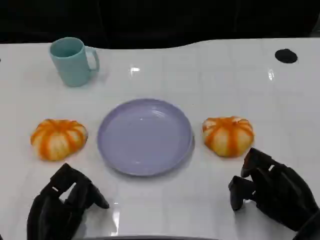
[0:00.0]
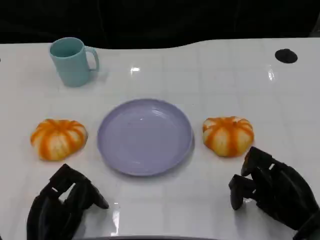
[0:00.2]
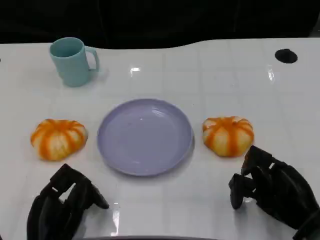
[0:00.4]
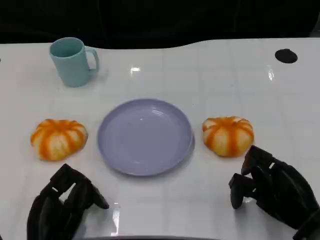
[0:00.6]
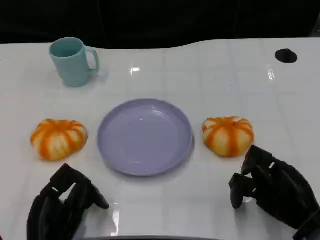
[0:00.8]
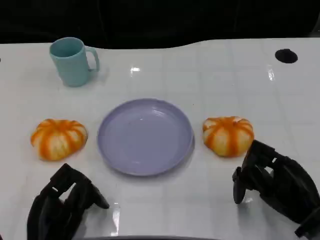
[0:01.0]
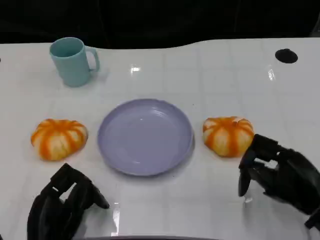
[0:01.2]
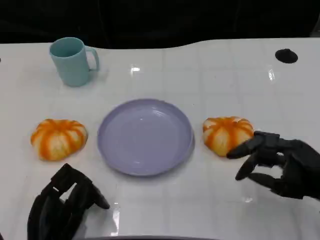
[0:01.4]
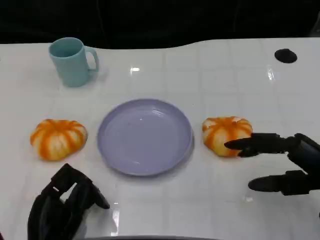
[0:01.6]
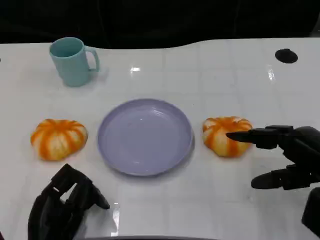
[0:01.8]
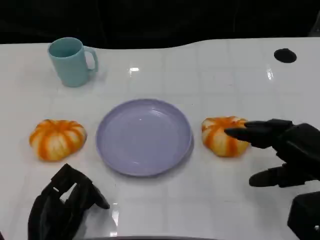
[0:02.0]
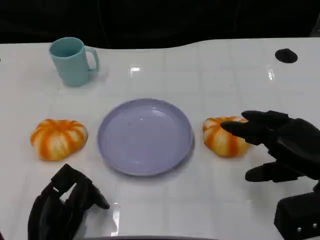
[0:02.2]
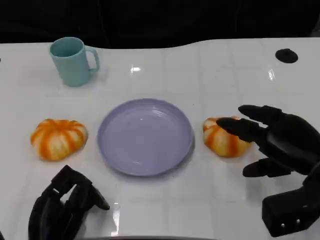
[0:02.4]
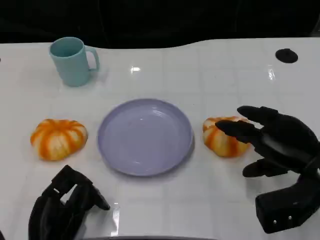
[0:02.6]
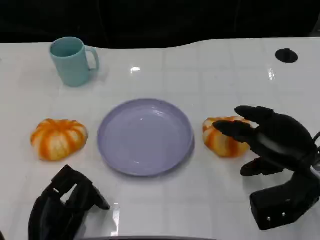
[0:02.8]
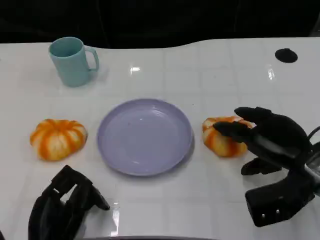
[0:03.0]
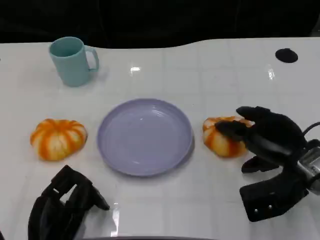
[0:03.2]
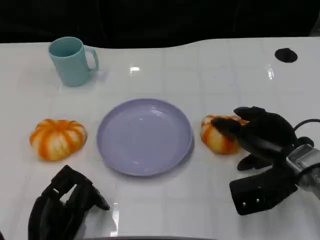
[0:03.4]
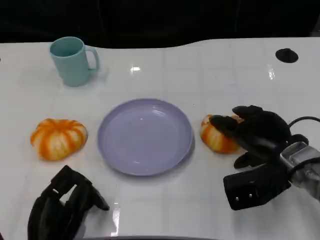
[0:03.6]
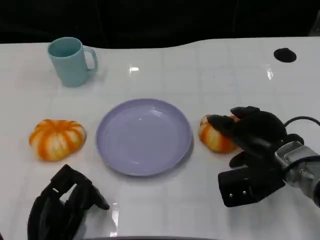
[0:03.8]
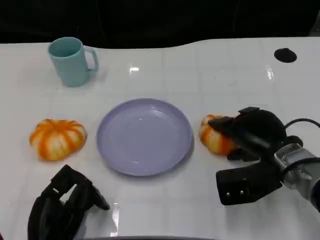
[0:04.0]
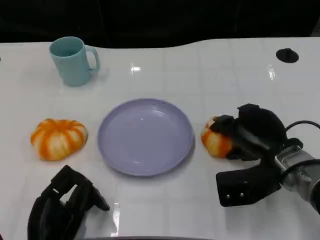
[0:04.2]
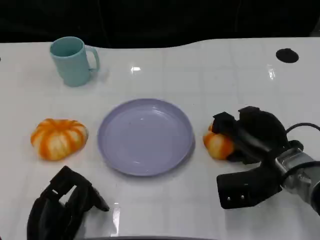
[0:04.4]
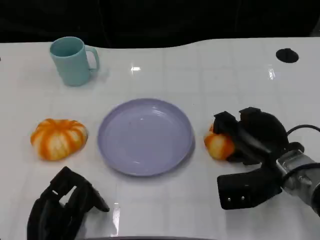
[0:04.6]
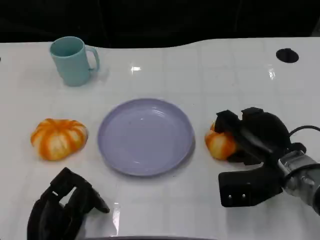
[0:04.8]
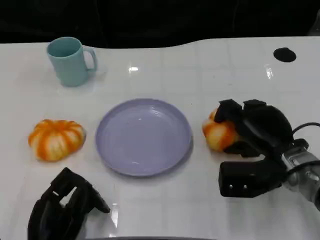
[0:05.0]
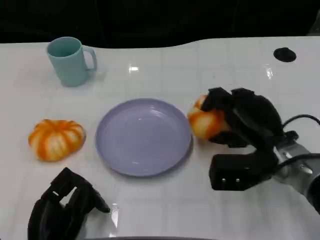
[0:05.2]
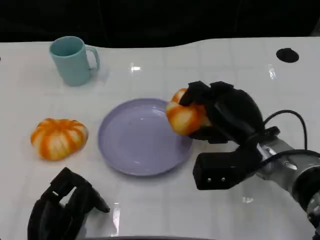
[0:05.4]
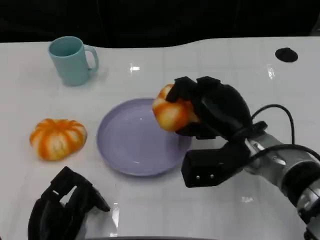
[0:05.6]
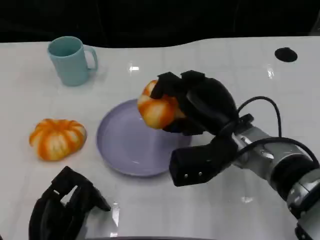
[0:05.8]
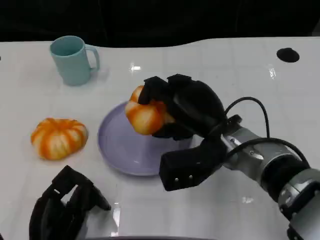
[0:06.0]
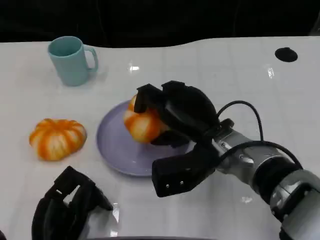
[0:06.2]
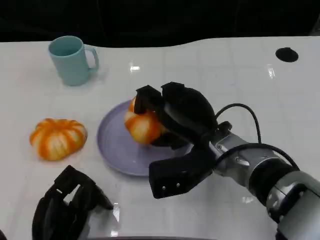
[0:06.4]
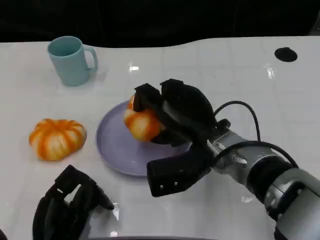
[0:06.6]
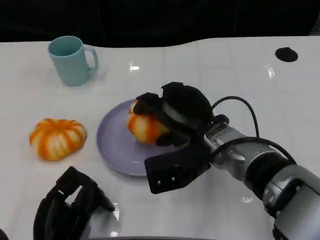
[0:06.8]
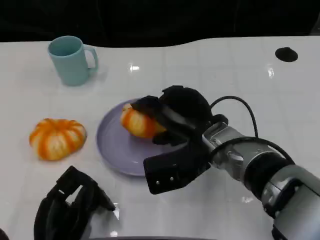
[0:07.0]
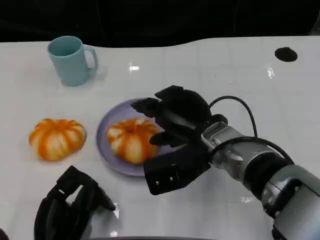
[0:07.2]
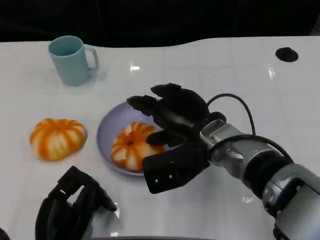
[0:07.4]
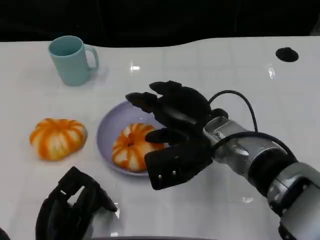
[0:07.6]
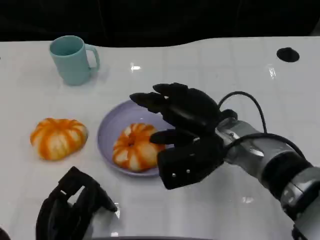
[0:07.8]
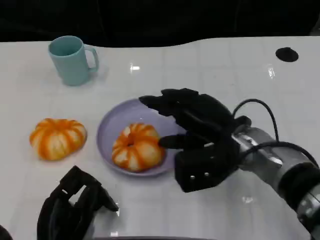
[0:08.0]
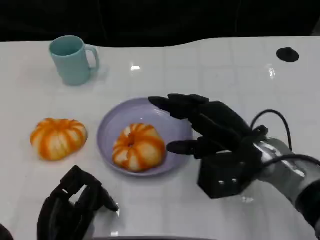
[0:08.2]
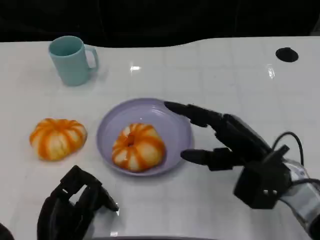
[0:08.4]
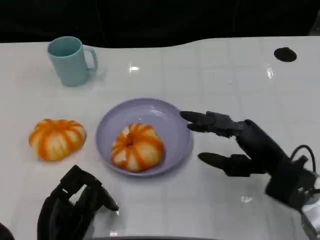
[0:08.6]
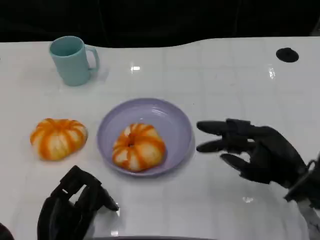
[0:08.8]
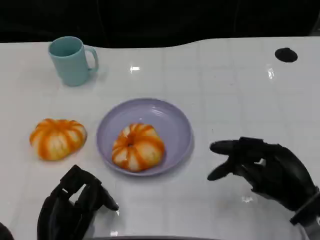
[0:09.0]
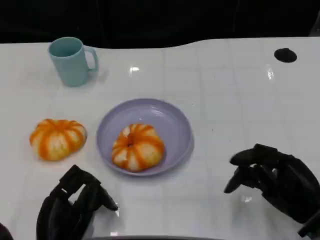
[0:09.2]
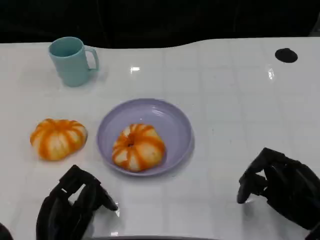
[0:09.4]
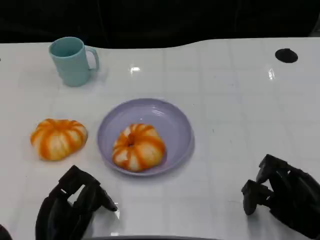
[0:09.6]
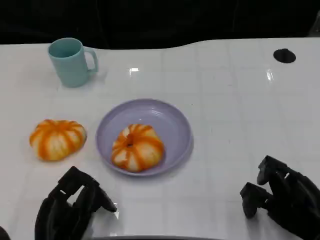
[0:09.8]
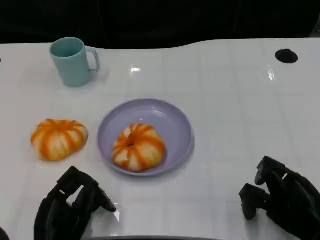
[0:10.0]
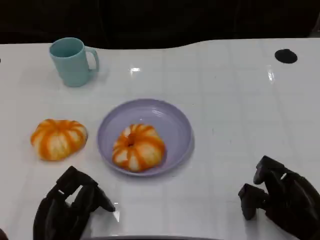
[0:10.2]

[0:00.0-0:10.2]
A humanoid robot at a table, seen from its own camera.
Task of the whole recording: Grasp the bread from the table and place it into the plate.
0:00.0 to 0:01.4: The right hand heads upward, covering some 5 cm.
0:01.4 to 0:03.0: The right hand goes about 5 cm forward.
0:03.0 to 0:04.4: There are only small adjustments of the hands.
0:04.4 to 0:05.8: The right hand shifts roughly 10 cm to the left.
0:07.2 to 0:08.8: The right hand is displaced to the right by approximately 15 cm.
0:08.8 to 0:10.2: The right hand goes approximately 5 cm backward.

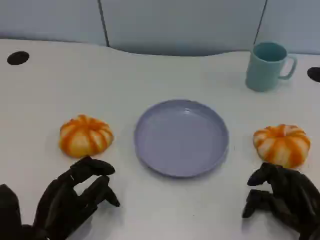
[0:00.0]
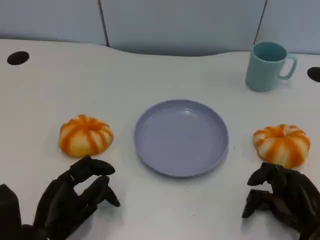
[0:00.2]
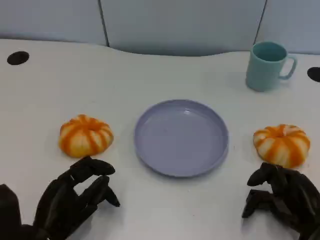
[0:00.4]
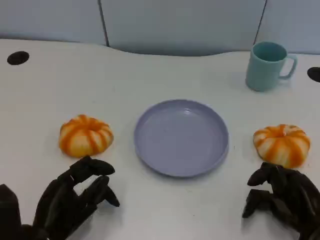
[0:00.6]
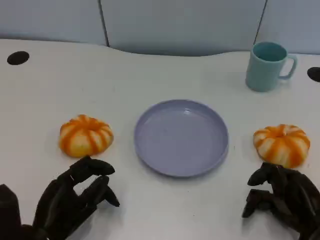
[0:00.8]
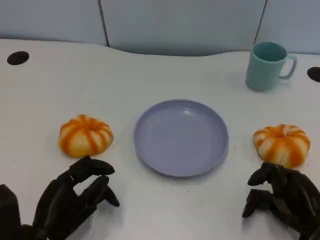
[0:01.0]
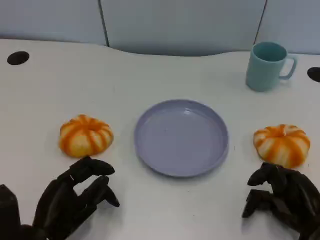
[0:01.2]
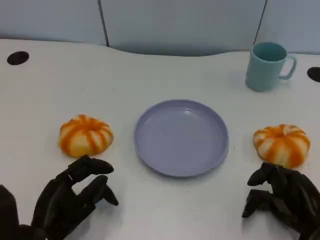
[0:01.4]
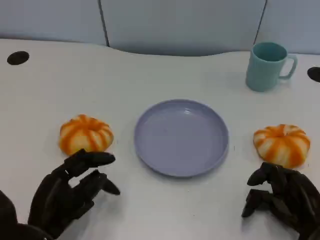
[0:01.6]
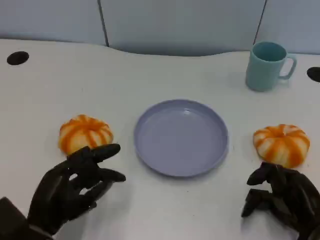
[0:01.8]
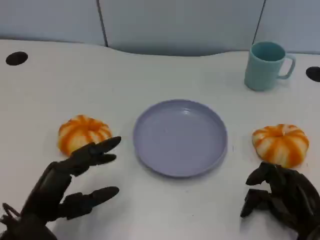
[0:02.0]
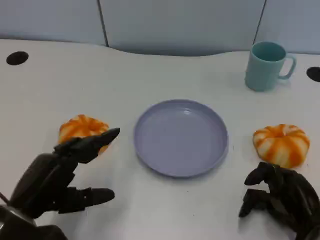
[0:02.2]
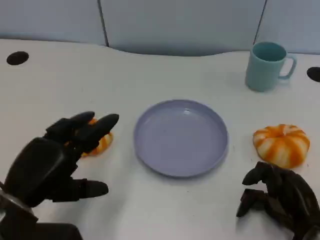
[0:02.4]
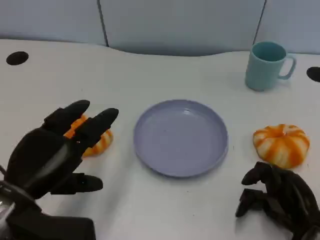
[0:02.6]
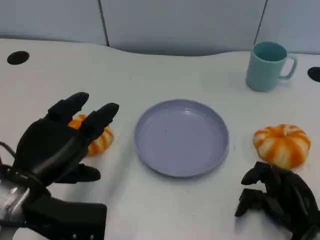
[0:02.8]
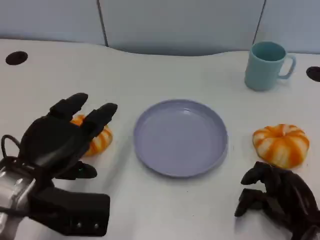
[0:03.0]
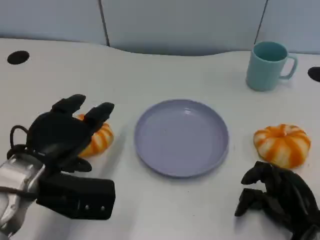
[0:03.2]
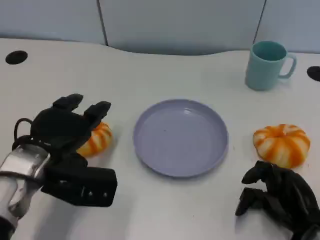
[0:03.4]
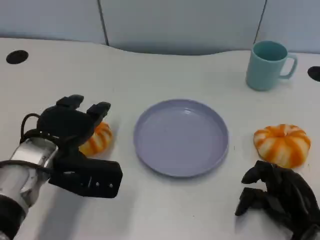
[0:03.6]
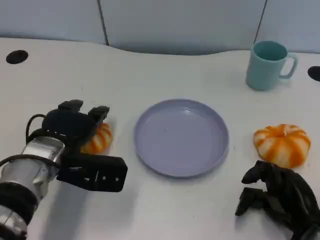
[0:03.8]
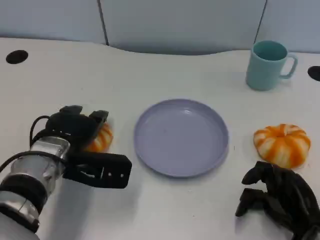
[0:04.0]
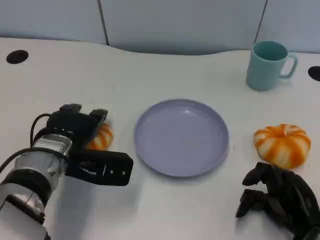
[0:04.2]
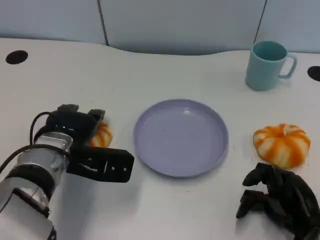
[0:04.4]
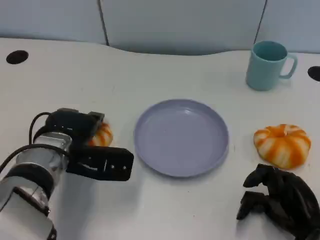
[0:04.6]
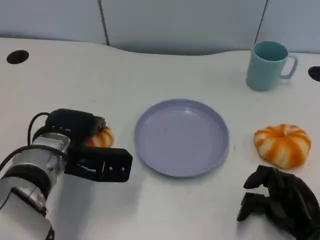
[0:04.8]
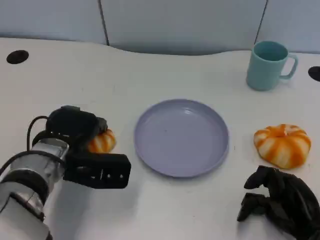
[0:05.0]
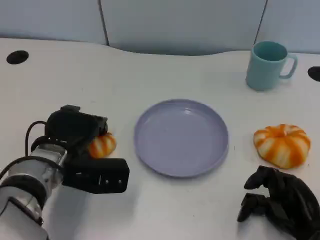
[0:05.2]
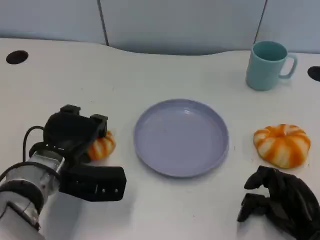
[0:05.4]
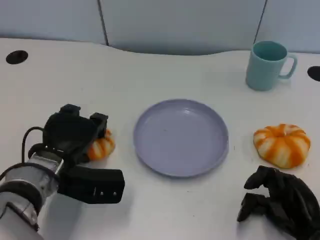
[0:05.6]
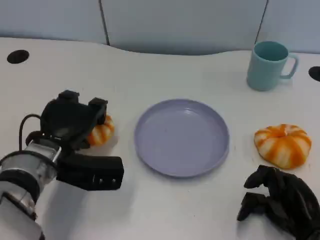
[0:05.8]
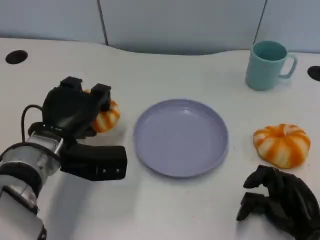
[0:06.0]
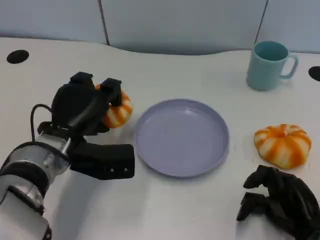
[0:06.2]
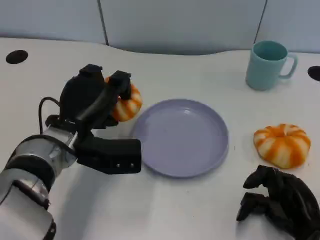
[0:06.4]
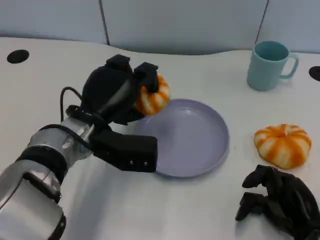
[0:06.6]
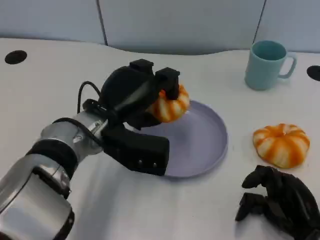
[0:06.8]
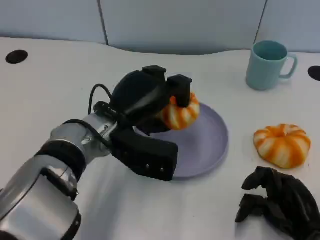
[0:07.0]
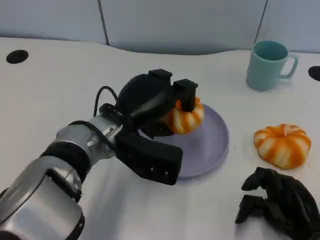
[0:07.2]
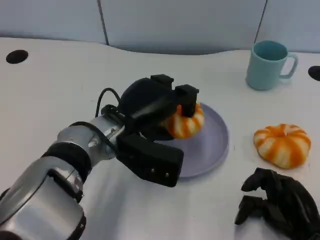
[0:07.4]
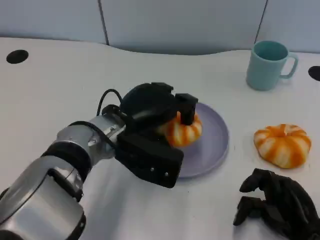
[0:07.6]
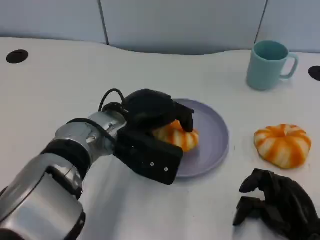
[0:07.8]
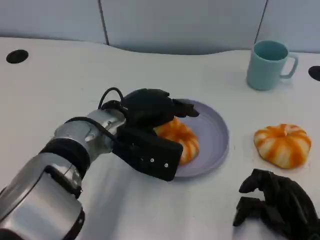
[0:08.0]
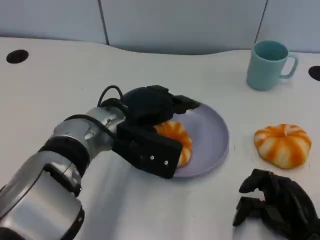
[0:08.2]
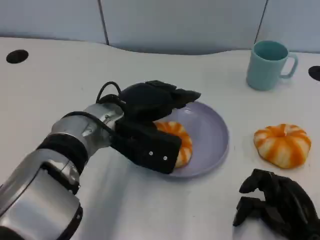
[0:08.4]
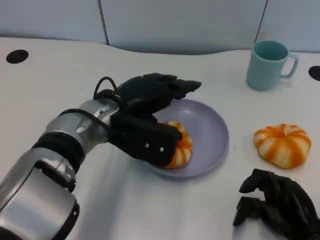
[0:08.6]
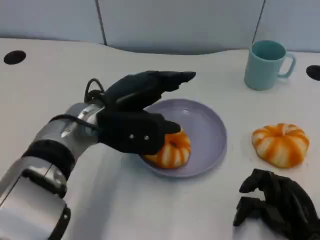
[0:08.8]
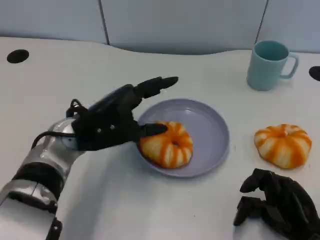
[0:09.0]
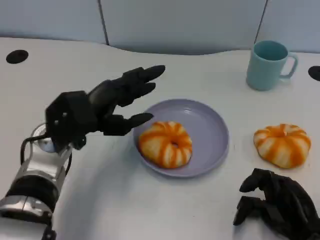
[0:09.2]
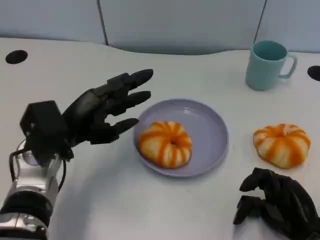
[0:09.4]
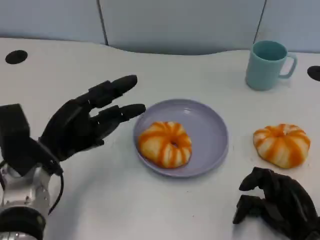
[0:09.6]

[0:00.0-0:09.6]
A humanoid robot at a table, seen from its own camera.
Task of the whole recording: Grasp the bread from the table and place it into the plate.
0:00.0 to 0:01.6: The hands make only small movements.
0:01.6 to 0:03.2: The left hand goes some 10 cm upward and forward.
0:03.2 to 0:04.8: The left hand is displaced forward by some 5 cm.
0:06.4 to 0:08.0: The left hand is displaced to the right by about 5 cm.
0:08.0 to 0:09.6: The left hand travels to the left by about 10 cm.

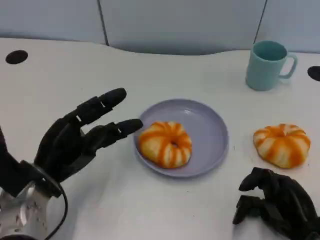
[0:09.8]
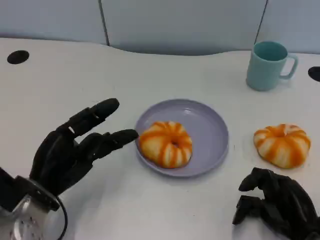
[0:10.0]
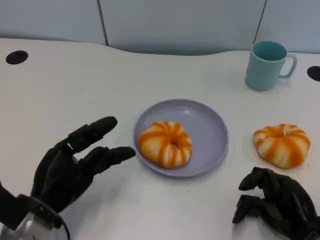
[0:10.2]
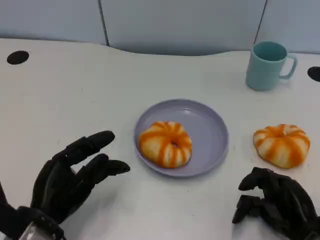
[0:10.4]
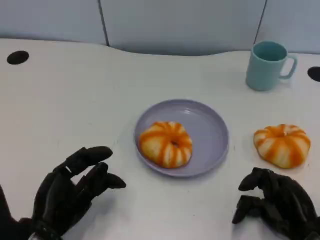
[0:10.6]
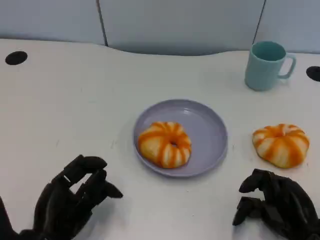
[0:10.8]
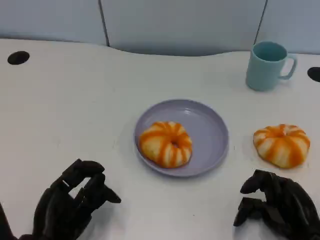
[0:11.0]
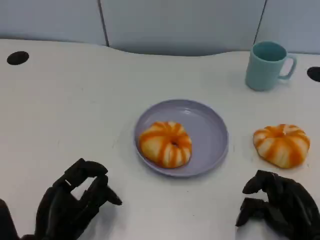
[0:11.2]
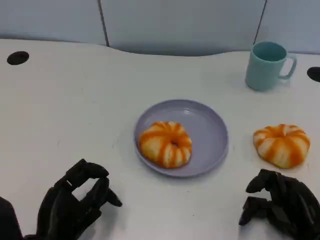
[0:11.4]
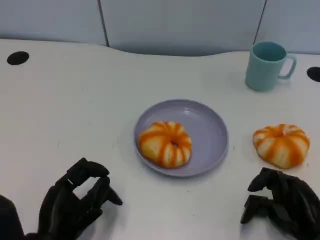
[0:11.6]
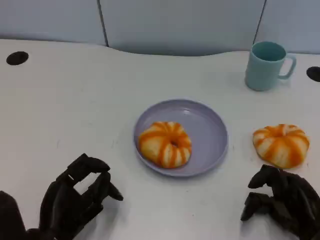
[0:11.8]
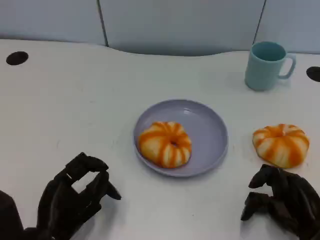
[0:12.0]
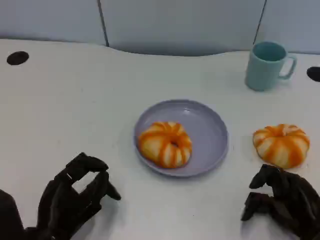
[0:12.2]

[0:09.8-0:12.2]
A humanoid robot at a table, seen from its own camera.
Task of the whole recording: Grasp the bread from the table and place it into the plate.
0:09.8 to 0:11.0: The left hand travels backward by some 10 cm.
0:11.0 to 0:12.2: The hands make only small movements.
